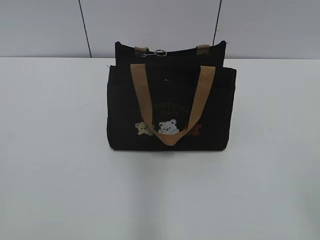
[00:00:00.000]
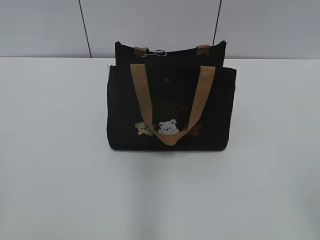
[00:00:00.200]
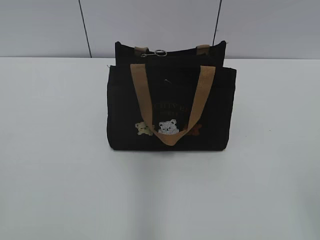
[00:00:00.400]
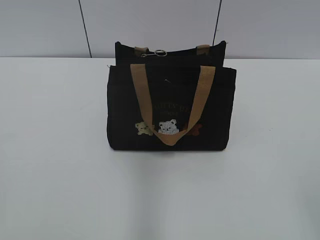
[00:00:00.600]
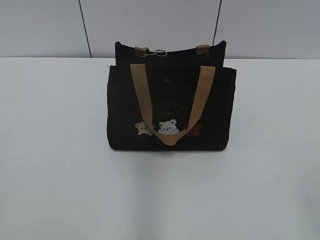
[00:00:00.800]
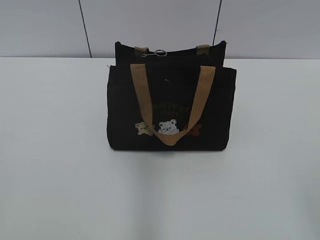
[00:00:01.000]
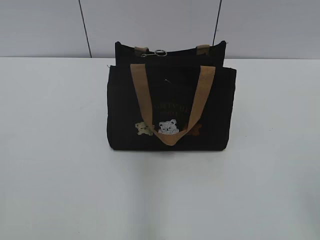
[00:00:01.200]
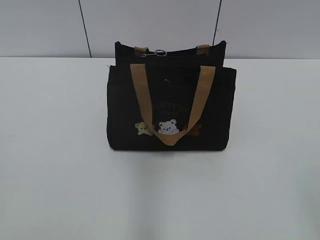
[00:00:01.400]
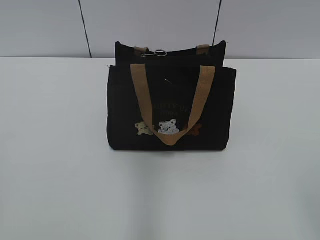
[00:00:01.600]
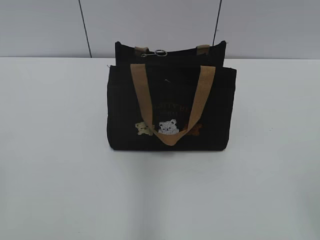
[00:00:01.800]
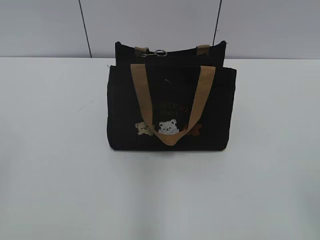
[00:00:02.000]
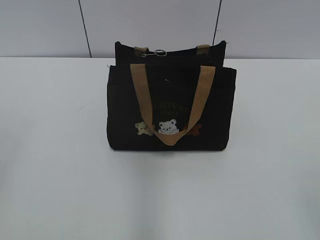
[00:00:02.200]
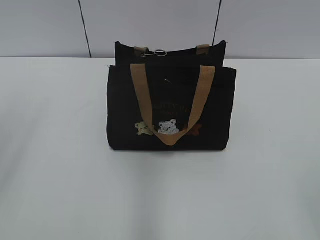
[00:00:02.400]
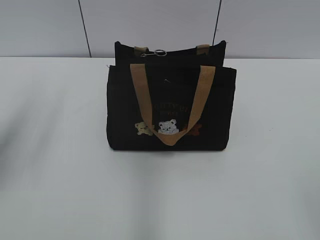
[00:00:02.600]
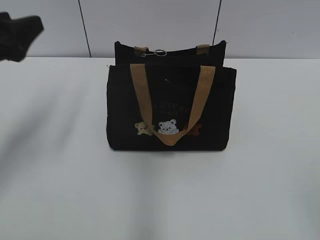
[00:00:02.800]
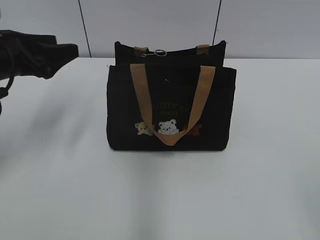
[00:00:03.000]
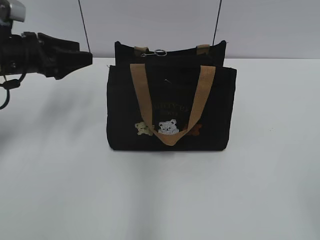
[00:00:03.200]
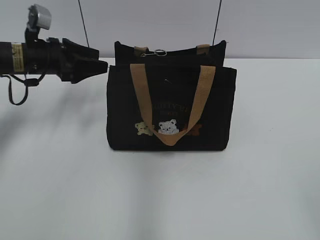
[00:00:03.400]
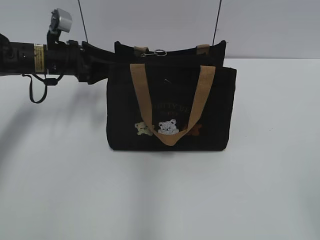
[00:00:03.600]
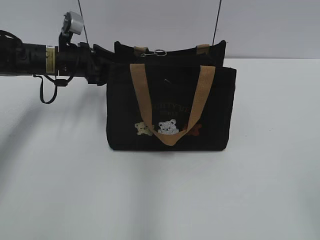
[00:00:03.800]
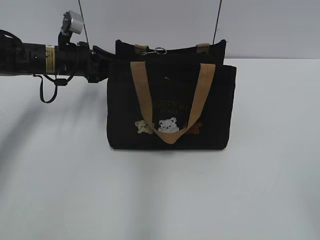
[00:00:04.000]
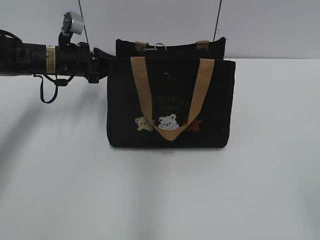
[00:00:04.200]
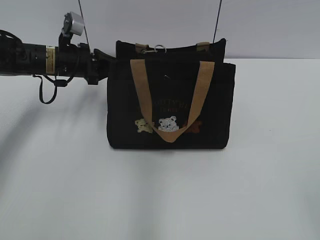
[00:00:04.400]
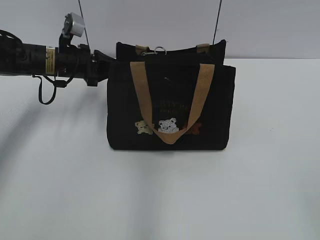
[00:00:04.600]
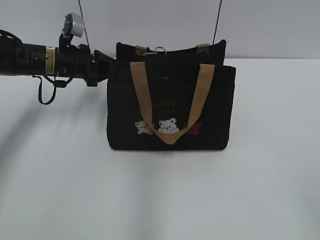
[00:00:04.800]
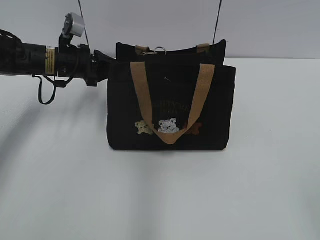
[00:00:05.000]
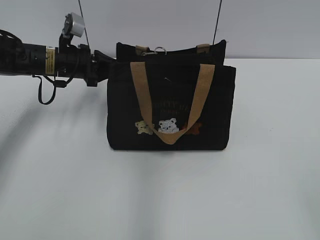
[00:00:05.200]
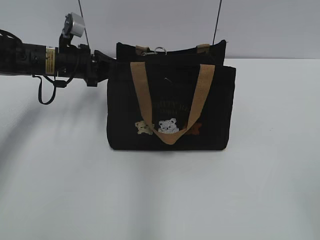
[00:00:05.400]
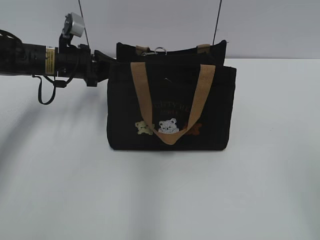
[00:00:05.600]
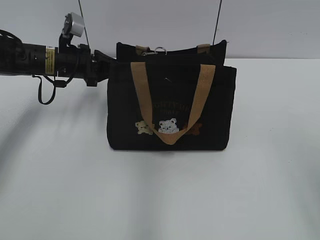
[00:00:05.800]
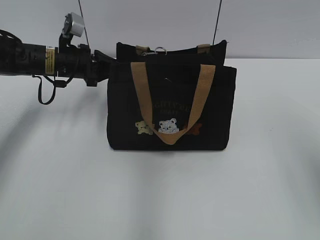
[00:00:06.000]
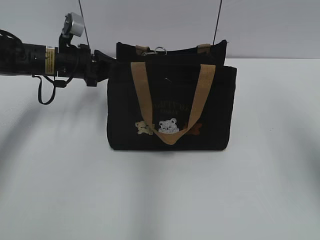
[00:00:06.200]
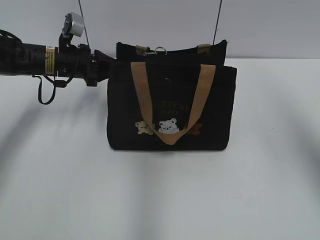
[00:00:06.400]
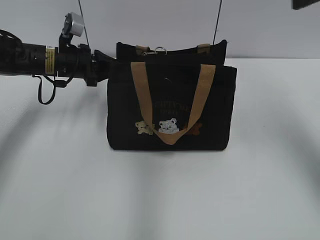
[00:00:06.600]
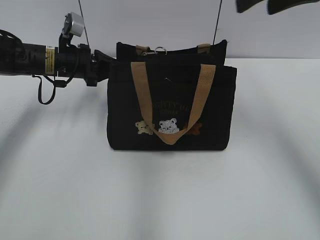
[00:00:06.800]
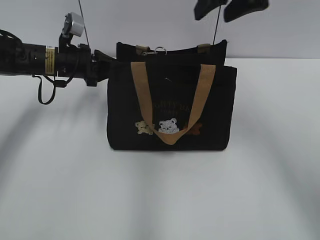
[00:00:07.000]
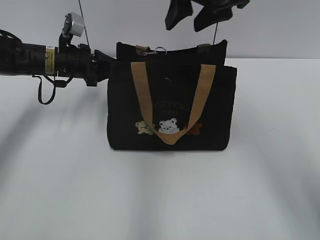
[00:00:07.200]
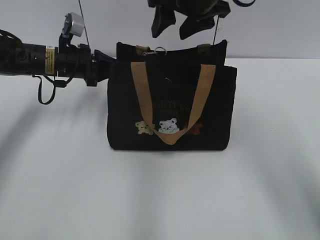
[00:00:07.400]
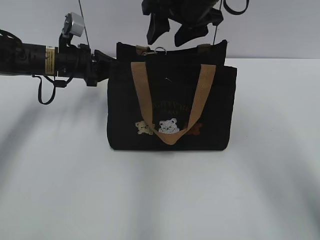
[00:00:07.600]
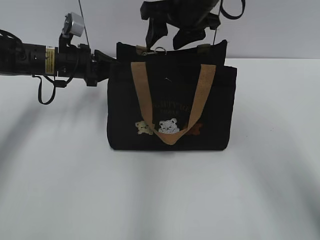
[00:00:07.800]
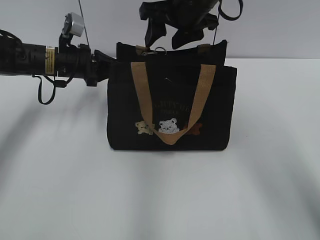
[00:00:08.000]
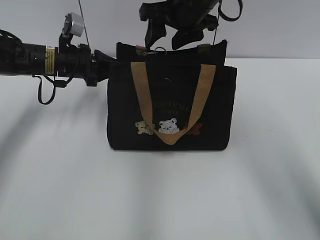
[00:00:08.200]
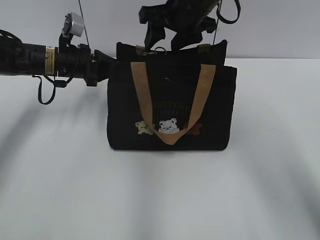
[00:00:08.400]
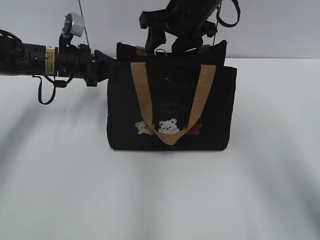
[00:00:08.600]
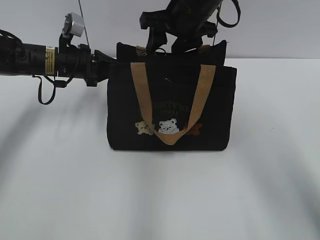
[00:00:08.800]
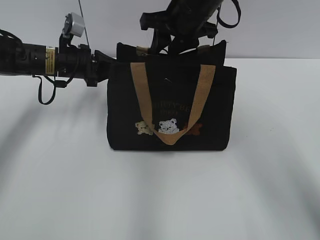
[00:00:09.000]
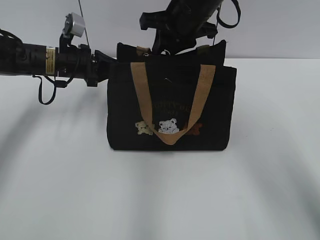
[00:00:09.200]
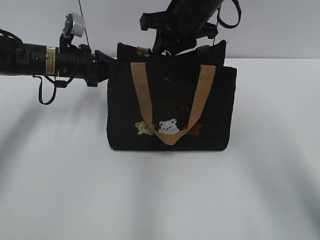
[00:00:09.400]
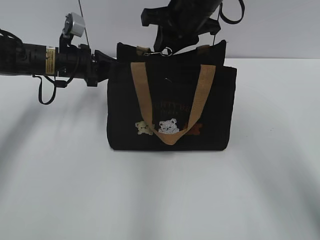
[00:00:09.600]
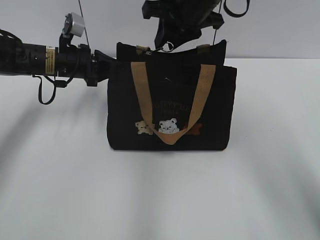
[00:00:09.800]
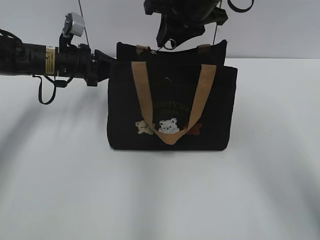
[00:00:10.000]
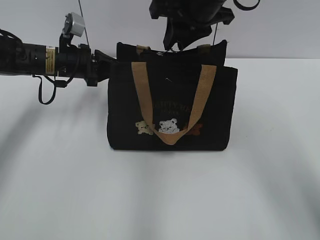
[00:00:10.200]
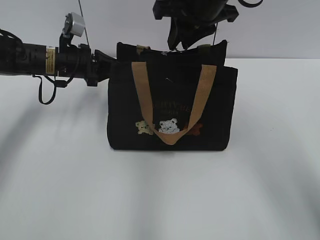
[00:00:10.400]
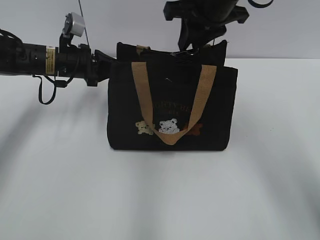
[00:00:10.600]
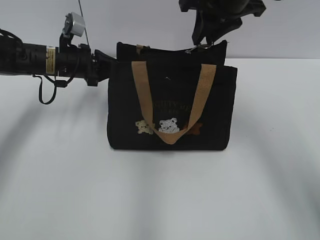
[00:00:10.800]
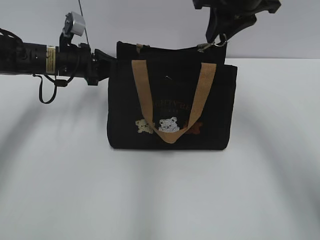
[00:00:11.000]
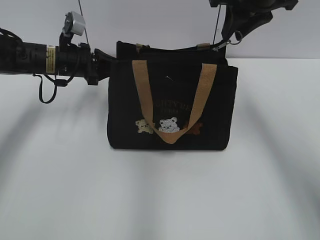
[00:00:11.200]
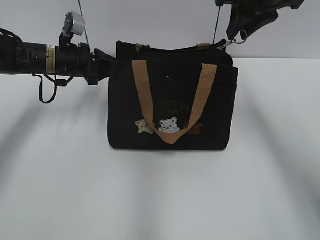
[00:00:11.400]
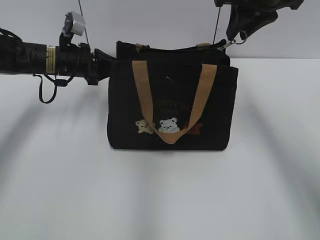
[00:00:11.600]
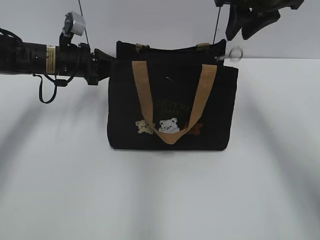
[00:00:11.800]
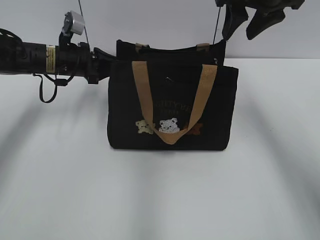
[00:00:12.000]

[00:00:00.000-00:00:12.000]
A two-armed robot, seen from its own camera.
Step, 00:00:00.000 to 00:00:11.800: Pull open the zipper with your right hand.
00:00:01.600 to 00:00:03.000: The left gripper shifts approximately 30 cm forward, and opens.
00:00:03.000 to 00:00:04.400: The left gripper moves forward, downward and to the right, about 15 cm, and closes its fingers.
00:00:04.400 to 00:00:06.000: The right gripper moves forward and upward, some 15 cm.
00:00:06.000 to 00:00:07.600: The right gripper heads forward and to the left, covering roughly 35 cm.
00:00:07.600 to 00:00:09.000: The right gripper closes its fingers.
00:00:09.000 to 00:00:10.400: The right gripper closes.
00:00:10.400 to 00:00:12.000: The right gripper heads to the right, covering some 10 cm, and opens its fingers.

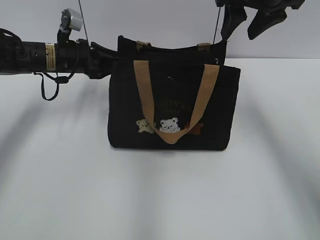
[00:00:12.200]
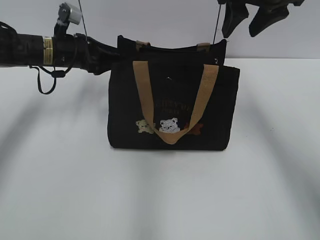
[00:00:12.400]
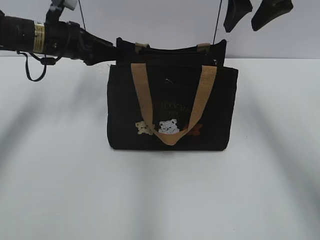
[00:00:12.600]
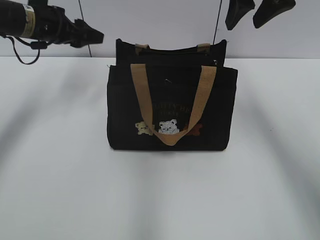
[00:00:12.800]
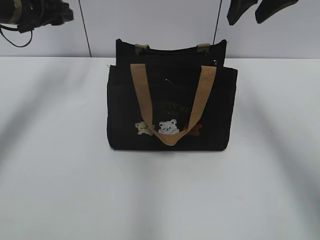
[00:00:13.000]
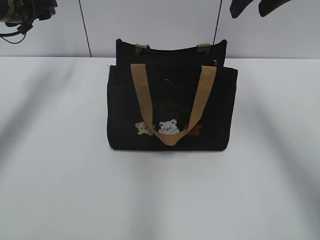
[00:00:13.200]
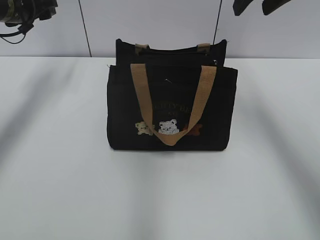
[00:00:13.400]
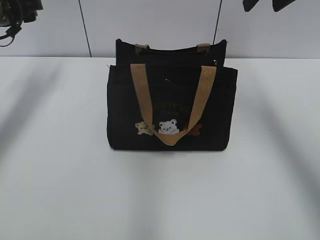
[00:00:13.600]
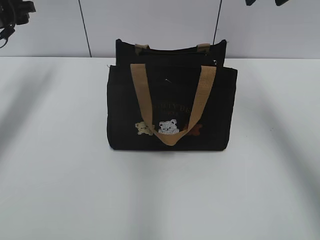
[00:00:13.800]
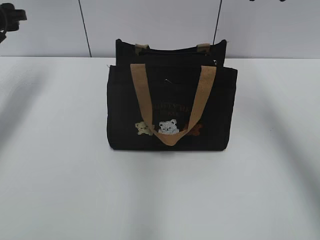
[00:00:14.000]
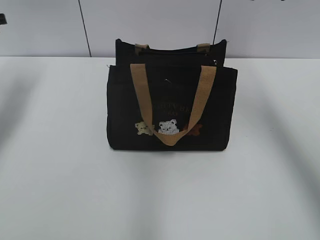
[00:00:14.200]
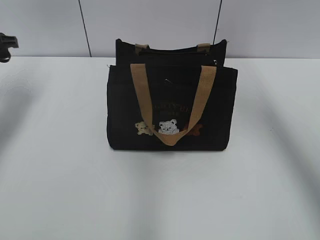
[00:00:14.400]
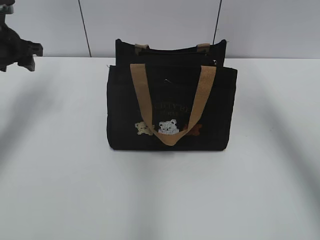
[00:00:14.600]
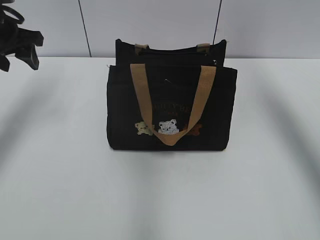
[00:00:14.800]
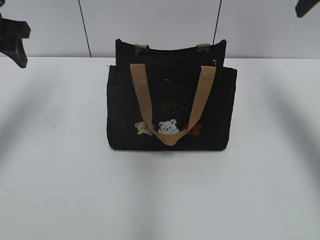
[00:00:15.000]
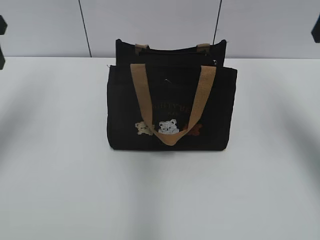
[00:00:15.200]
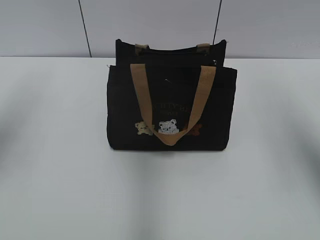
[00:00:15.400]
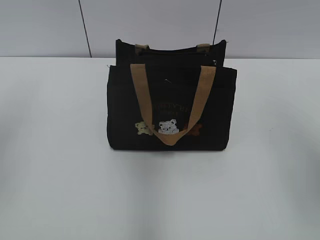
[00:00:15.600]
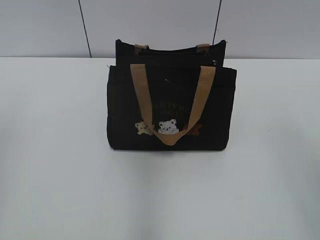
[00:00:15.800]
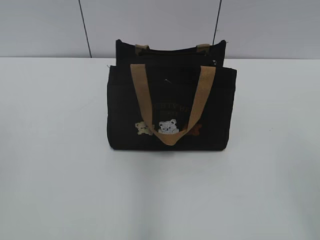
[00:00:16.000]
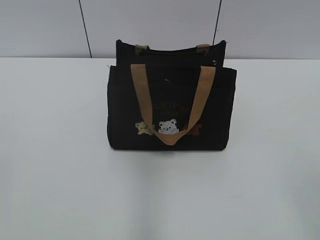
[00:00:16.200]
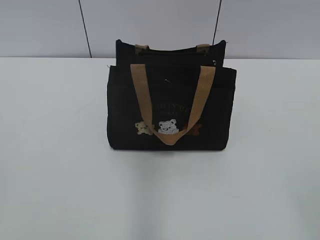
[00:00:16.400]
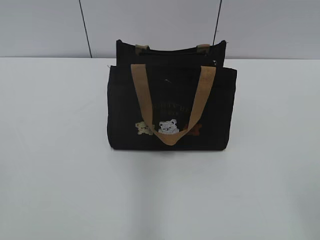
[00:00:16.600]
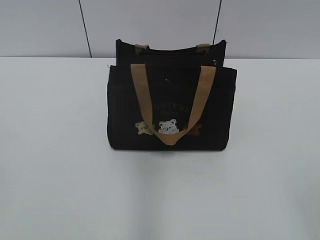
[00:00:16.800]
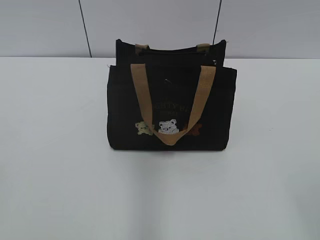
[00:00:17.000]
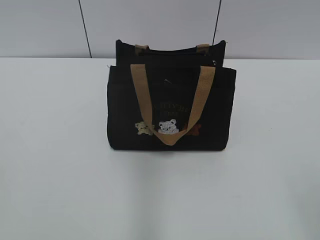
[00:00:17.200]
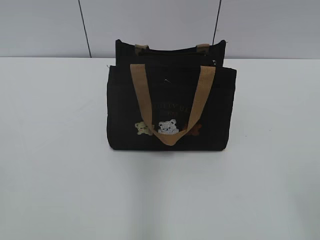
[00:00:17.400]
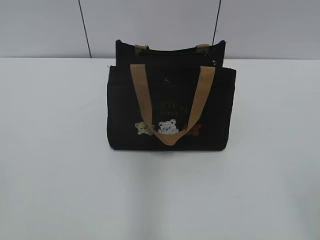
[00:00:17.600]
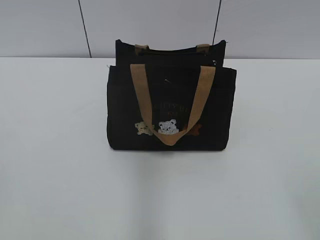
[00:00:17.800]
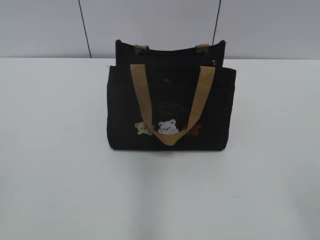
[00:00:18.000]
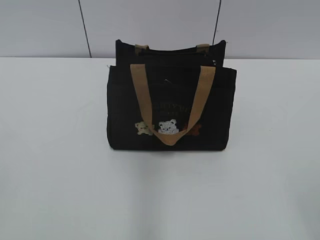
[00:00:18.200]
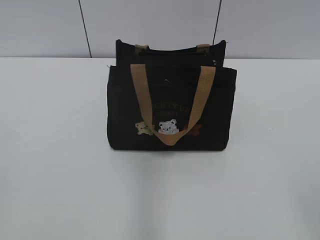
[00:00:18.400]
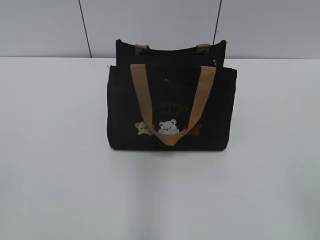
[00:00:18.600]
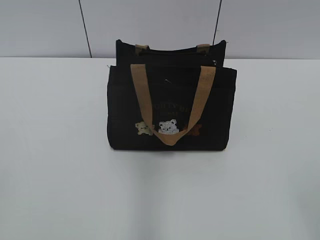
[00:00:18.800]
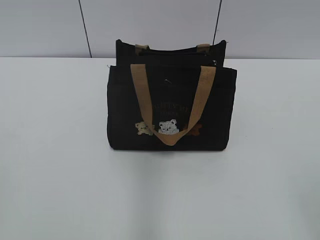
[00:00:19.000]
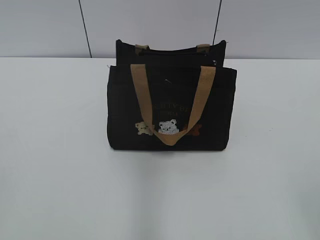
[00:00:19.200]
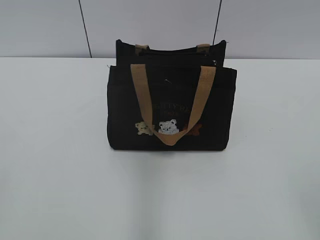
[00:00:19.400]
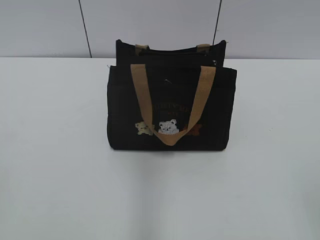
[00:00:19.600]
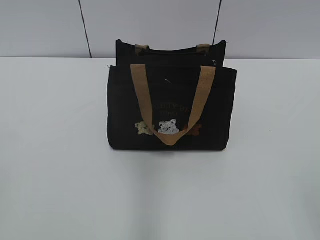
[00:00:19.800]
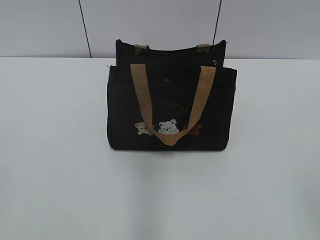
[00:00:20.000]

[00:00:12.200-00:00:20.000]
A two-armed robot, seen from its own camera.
Step, 00:00:12.200 to 00:00:12.600: Hold the bag with your left hand.
00:00:12.200 to 00:00:13.800: The right gripper goes approximately 5 cm upward. The left gripper goes roughly 15 cm to the left and upward.
00:00:13.800 to 00:00:15.400: The right gripper moves backward and to the right, about 15 cm, while the left gripper heads backward and upward, covering about 20 cm.
00:00:15.400 to 00:00:16.800: The right gripper travels backward and downward by roughly 25 cm. Meanwhile the left gripper shifts some 30 cm backward.
